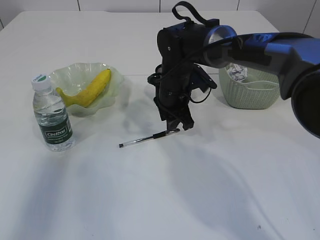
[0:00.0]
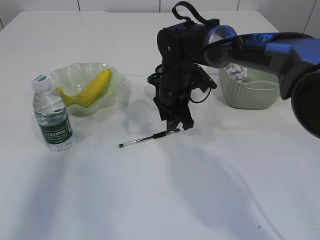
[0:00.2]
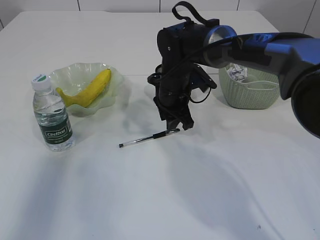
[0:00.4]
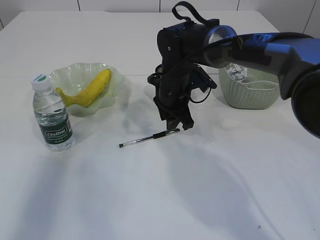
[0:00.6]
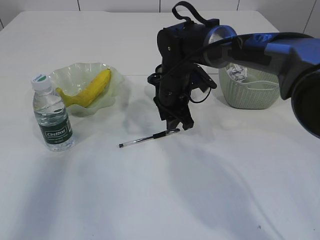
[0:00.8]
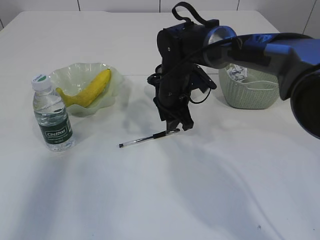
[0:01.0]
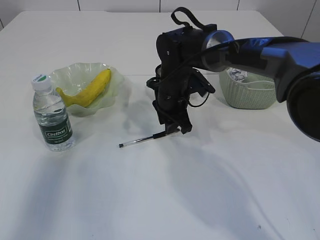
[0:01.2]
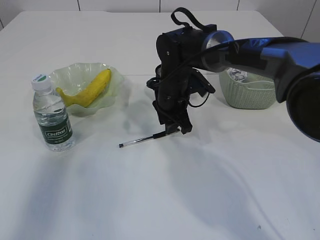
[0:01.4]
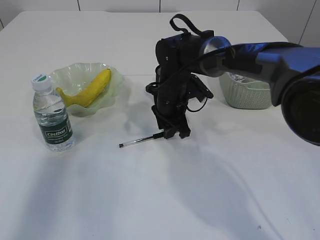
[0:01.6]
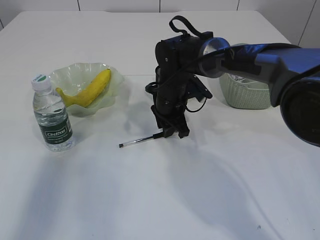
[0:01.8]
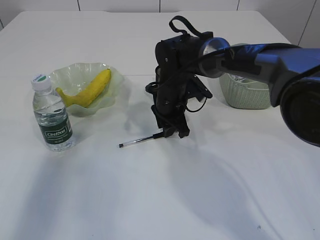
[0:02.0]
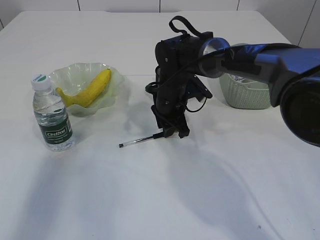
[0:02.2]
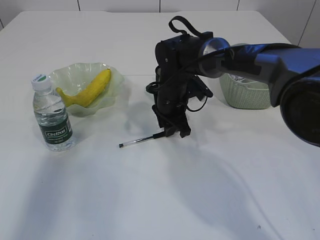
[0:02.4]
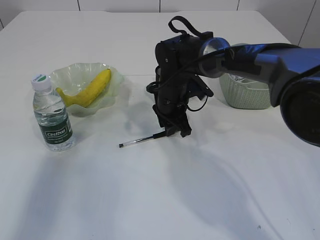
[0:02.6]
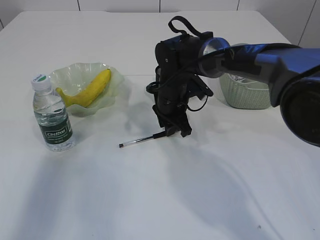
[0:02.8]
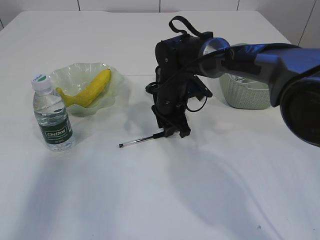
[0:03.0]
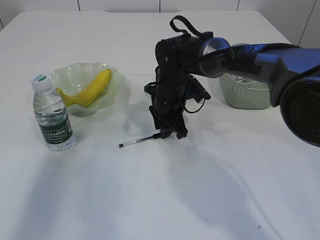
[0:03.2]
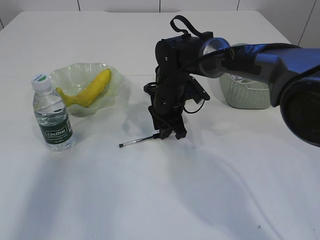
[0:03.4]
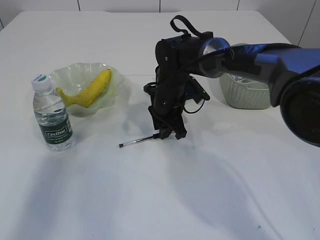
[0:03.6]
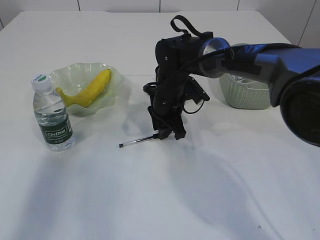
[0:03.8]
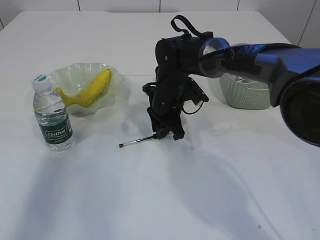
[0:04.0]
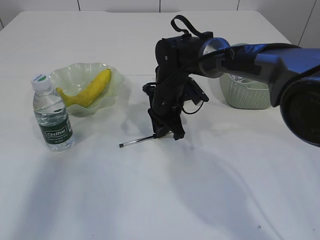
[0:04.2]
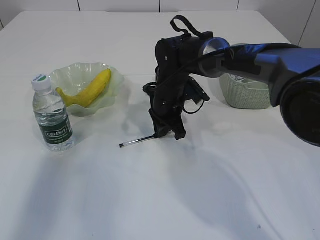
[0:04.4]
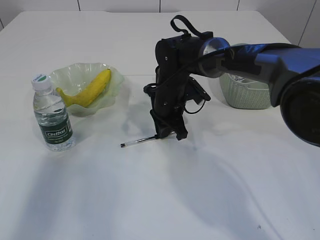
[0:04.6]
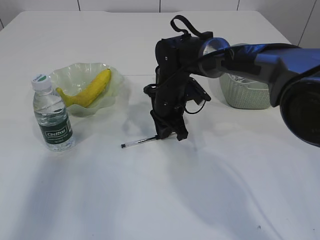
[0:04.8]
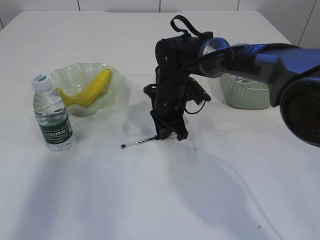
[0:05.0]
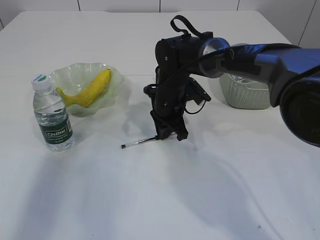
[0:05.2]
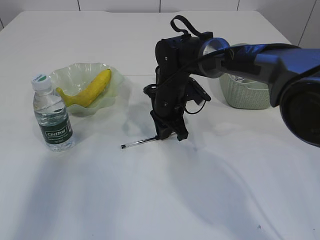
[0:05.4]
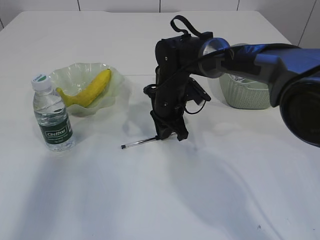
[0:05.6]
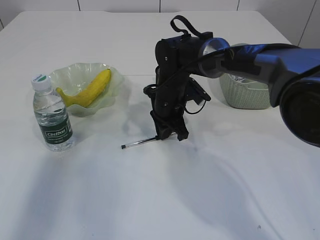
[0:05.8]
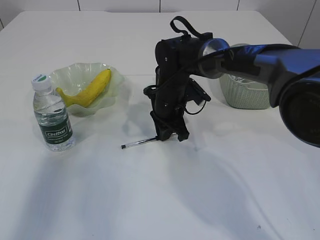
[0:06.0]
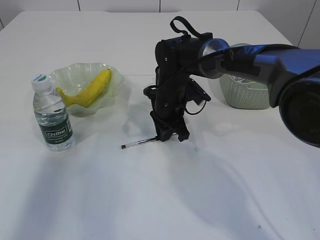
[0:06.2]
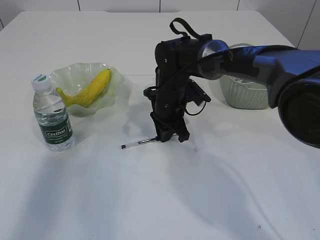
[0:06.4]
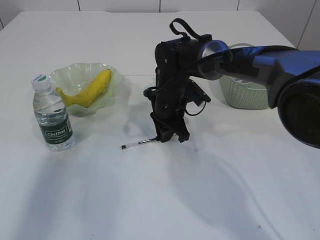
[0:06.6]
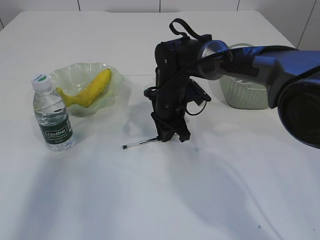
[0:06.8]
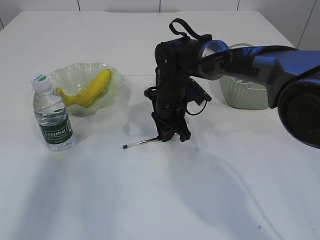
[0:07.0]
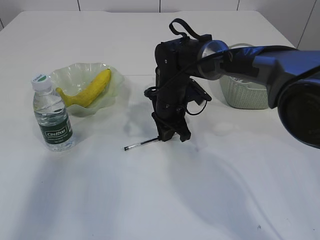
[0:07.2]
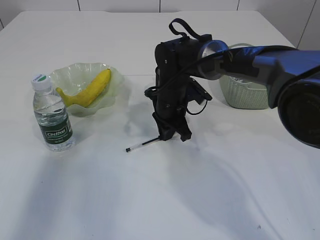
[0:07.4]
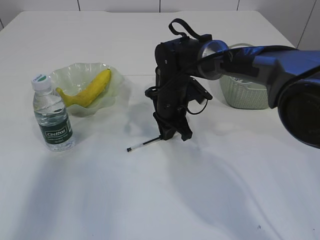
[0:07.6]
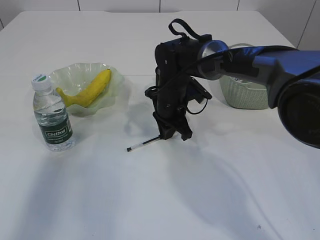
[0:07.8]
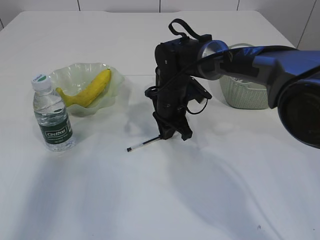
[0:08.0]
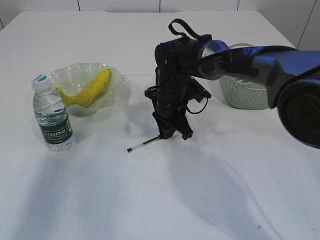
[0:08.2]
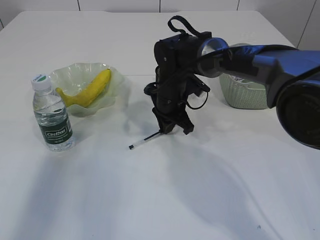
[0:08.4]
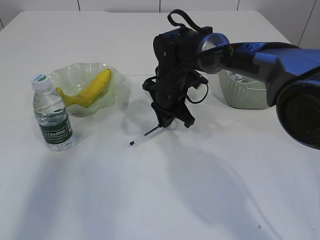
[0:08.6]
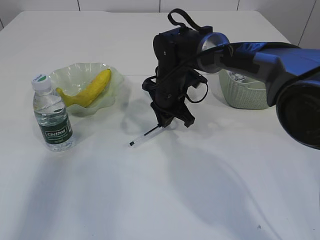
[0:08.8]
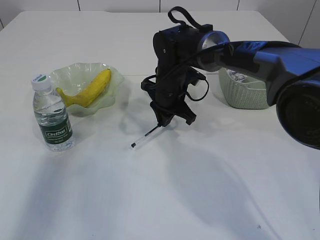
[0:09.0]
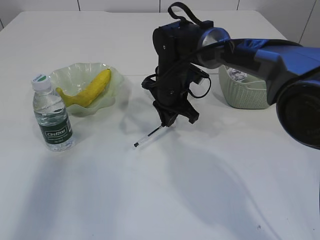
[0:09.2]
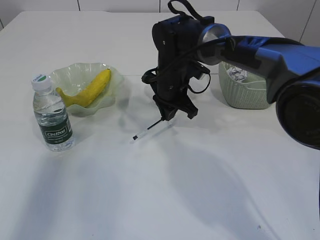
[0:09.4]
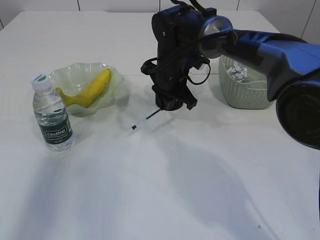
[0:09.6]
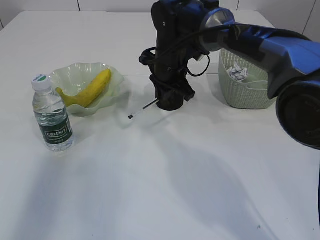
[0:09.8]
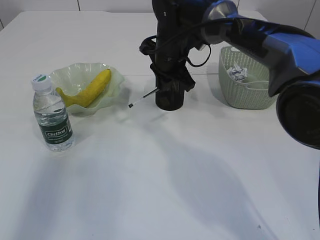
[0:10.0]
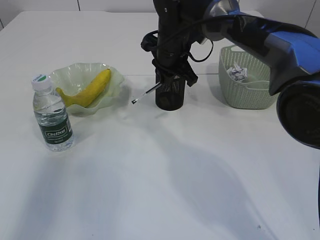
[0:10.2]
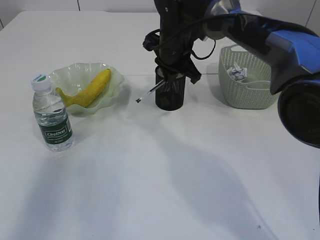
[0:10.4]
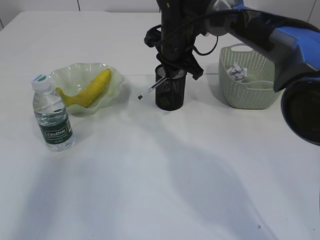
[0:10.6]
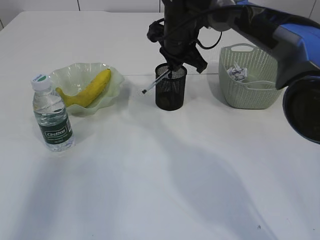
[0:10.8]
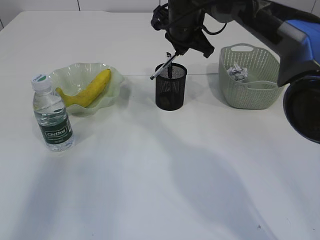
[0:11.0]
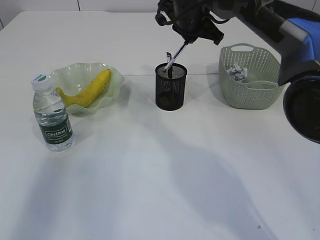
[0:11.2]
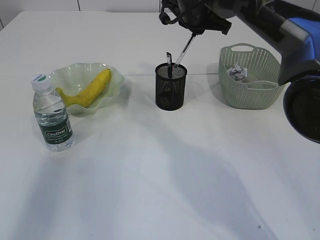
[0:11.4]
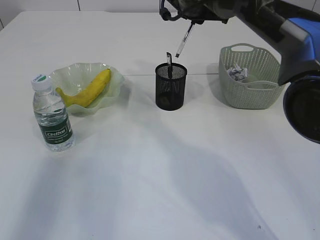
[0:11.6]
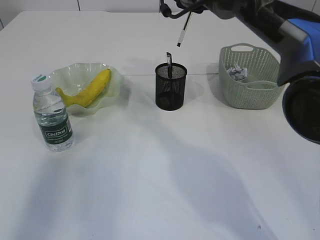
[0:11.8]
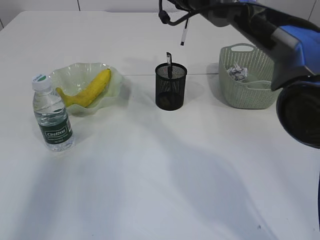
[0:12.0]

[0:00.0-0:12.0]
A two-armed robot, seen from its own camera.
Step, 0:00.0 to 0:09.6: Pick up the pen with right arm.
0:00.0 to 0:01.6: The grippers stay close to where they were, moving slightly.
0:01.6 to 0:03.0: Both grippers stay put.
0:03.0 to 0:04.4: There are only small adjustments of the grippers.
0:04.4 to 0:06.0: Neither gripper changes place.
0:06.0 to 0:07.6: Both grippers stay put.
0:07.6 to 0:09.0: The grippers move only a little.
0:09.0 to 0:10.4: The right gripper shifts approximately 10 cm upward.
0:10.4 to 0:12.0: The right gripper travels upward by roughly 5 cm.

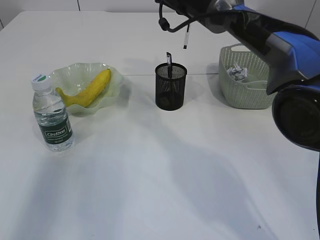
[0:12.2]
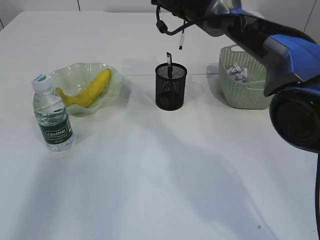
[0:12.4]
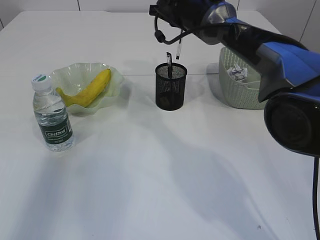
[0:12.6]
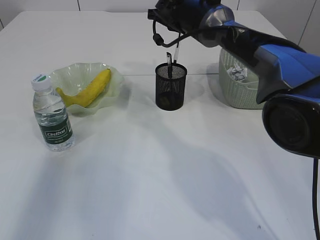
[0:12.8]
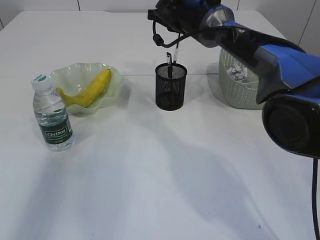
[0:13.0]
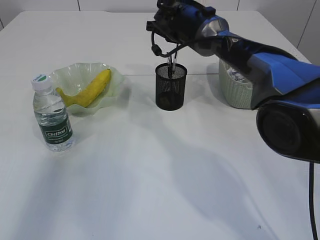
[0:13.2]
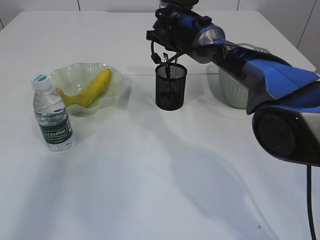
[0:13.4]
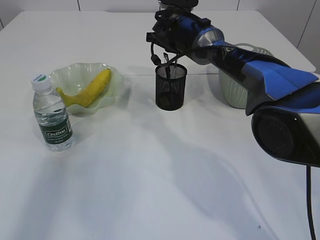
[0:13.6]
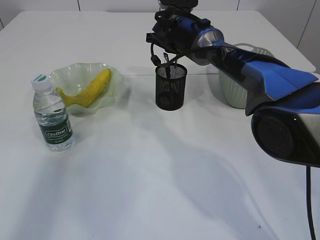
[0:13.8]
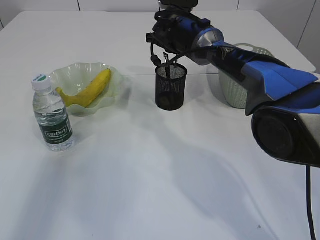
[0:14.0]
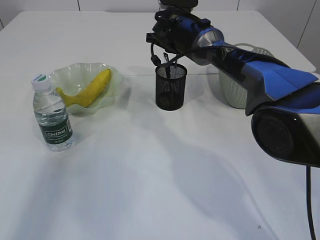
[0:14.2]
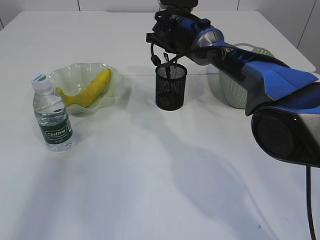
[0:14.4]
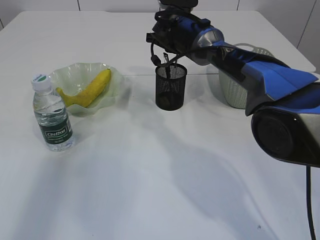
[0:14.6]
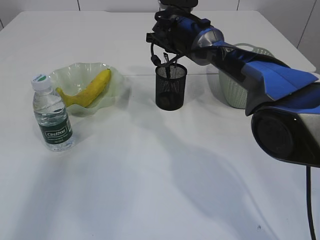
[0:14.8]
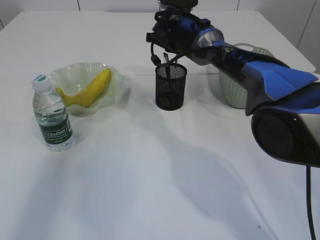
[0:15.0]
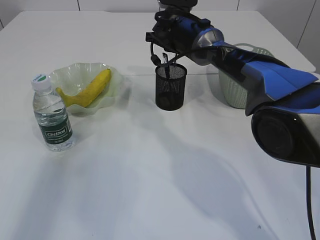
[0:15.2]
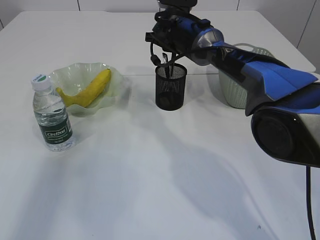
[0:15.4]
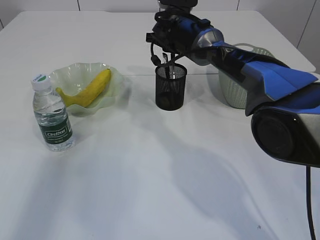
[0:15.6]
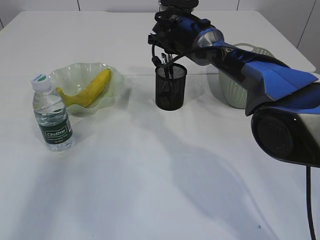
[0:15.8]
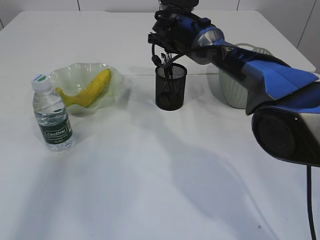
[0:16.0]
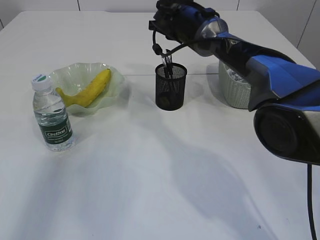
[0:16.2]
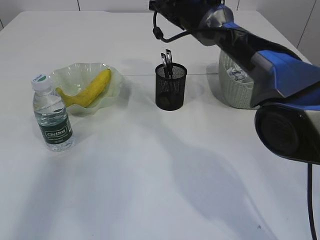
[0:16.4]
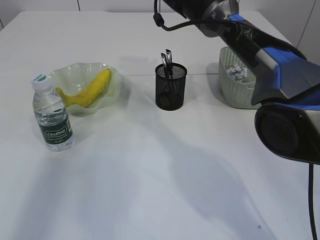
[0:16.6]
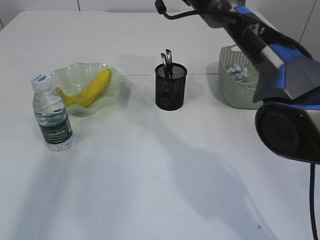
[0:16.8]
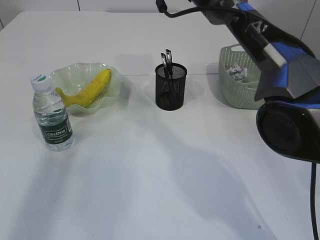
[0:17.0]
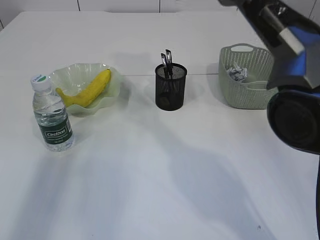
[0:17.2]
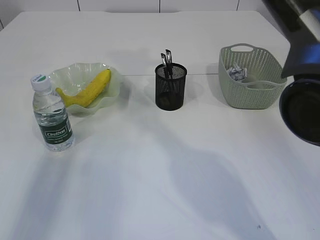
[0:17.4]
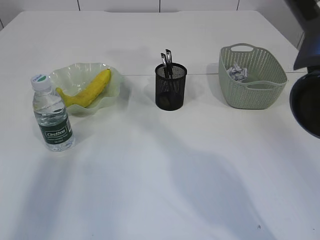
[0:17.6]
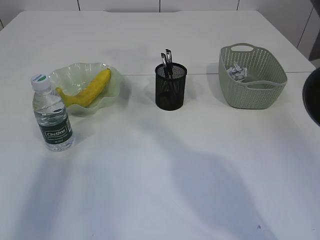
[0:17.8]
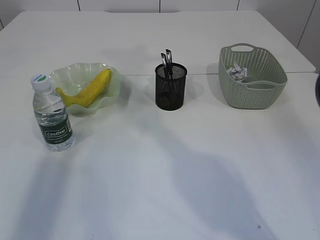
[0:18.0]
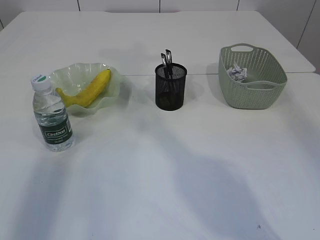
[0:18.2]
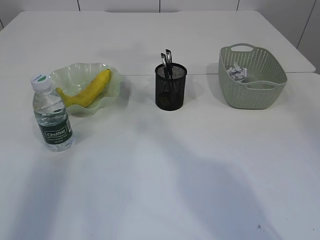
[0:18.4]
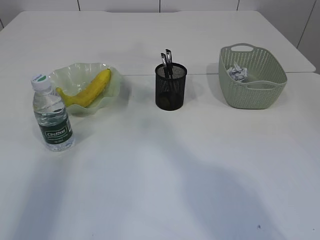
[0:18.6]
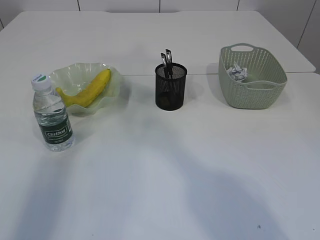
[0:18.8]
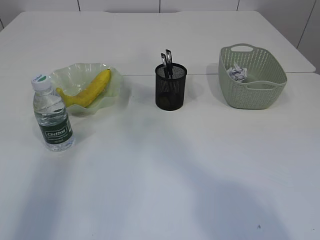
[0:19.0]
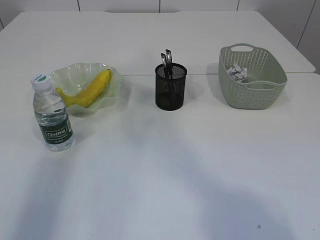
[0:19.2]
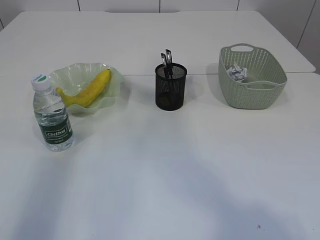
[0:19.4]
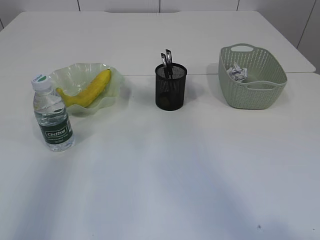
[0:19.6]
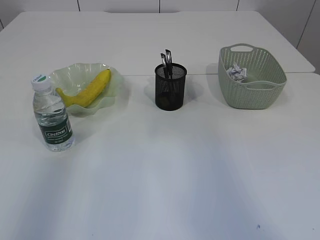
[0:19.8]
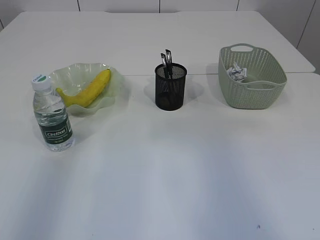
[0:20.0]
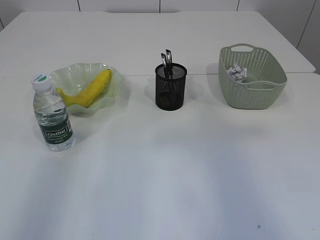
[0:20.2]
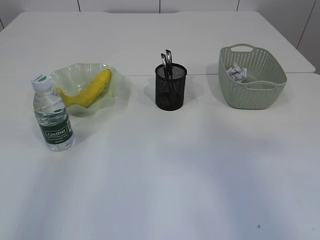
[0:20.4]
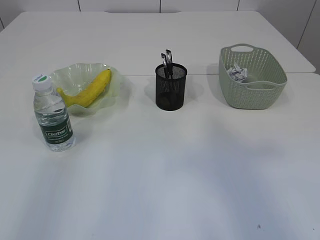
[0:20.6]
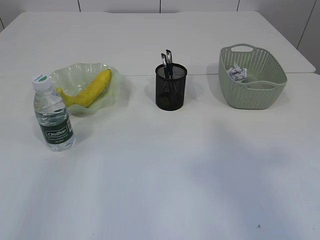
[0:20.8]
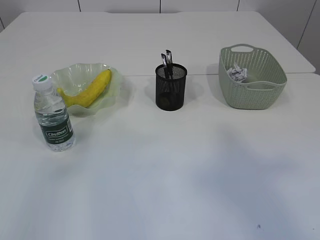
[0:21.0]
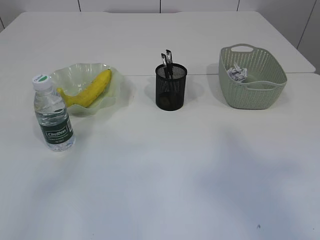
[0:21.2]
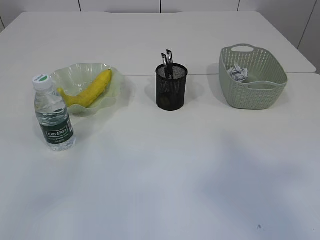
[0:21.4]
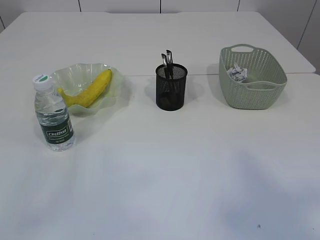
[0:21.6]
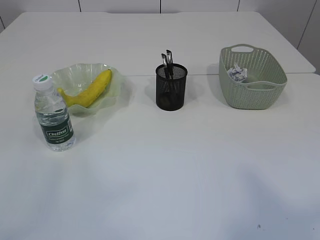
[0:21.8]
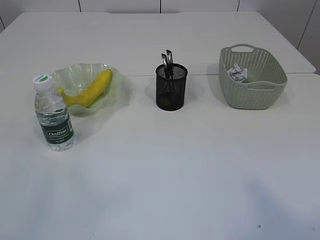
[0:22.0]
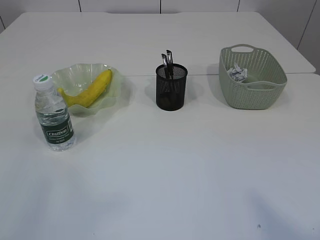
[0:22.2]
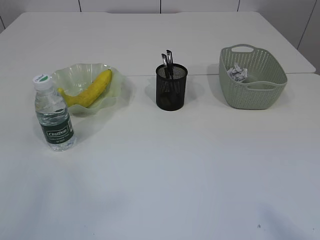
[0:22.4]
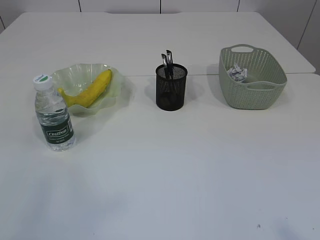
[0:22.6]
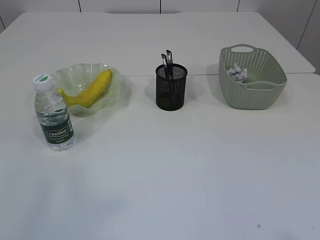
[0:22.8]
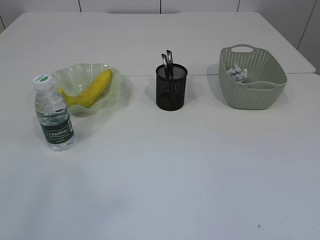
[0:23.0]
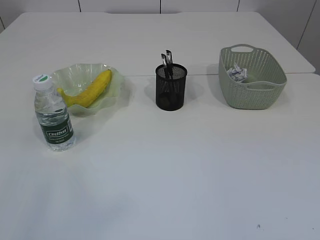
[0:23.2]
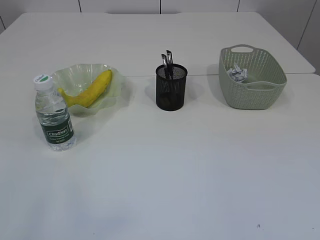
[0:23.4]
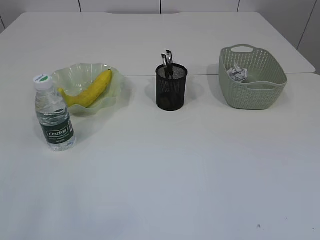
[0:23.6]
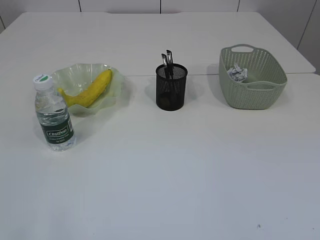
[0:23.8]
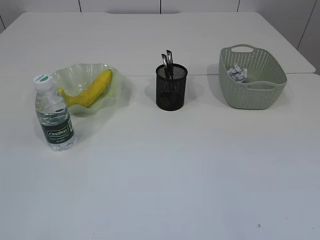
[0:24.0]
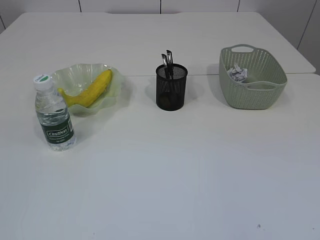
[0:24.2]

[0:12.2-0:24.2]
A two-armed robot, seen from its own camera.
Step, 0:12.2 to 0:15.0: Place the pen into the pen holder.
0:12.2 to 0:13.8: The right gripper is displaced downward by some 10 cm.
0:13.8 to 0:15.2: Both grippers stay put.
0:15.2 to 0:16.6: The right gripper moves upward, approximately 10 cm.
0:16.6 to 0:18.2: The right gripper shifts approximately 25 cm upward and backward, and closes.
0:18.2 to 0:19.8: The right gripper is displaced backward, upward and to the right by about 40 cm.
